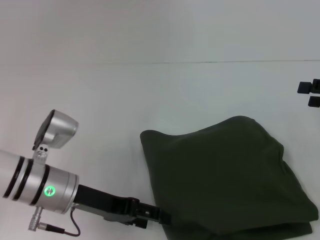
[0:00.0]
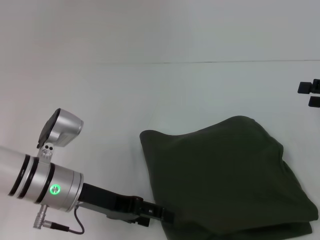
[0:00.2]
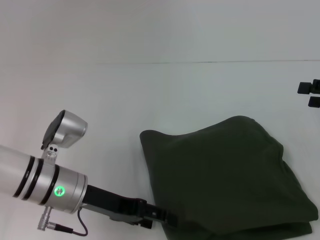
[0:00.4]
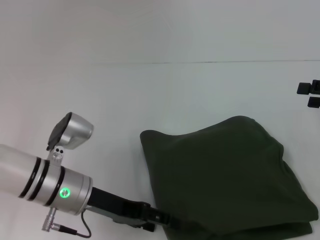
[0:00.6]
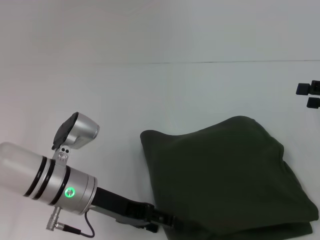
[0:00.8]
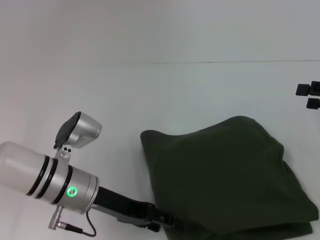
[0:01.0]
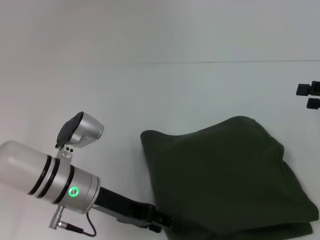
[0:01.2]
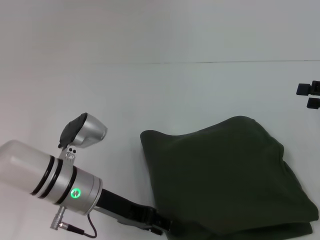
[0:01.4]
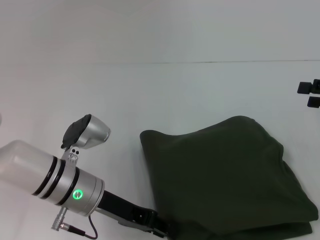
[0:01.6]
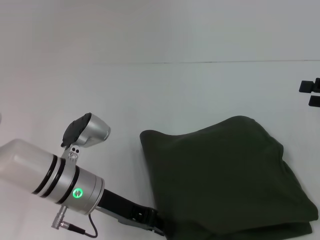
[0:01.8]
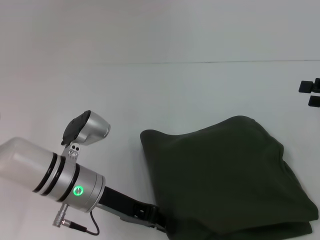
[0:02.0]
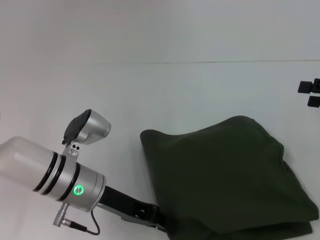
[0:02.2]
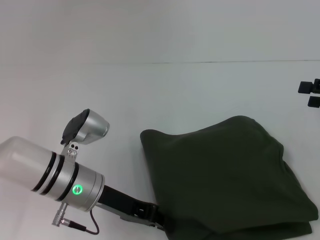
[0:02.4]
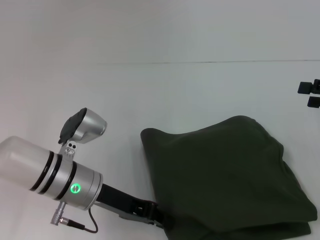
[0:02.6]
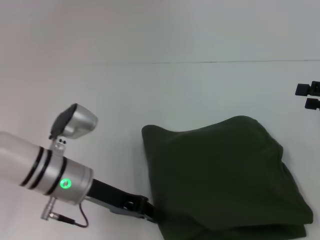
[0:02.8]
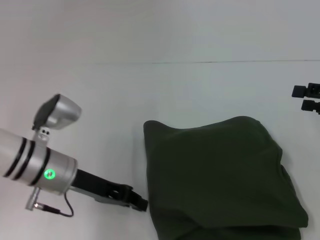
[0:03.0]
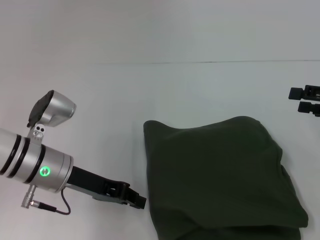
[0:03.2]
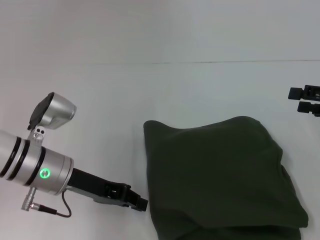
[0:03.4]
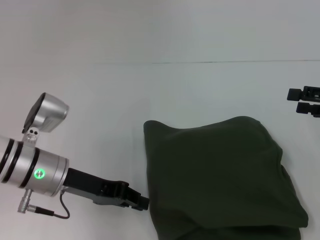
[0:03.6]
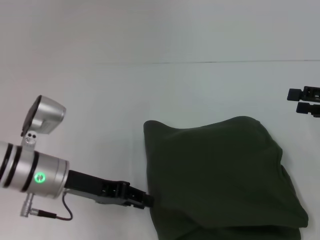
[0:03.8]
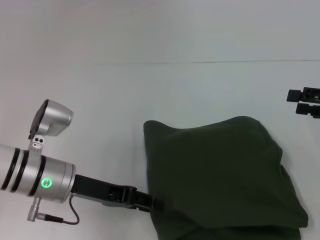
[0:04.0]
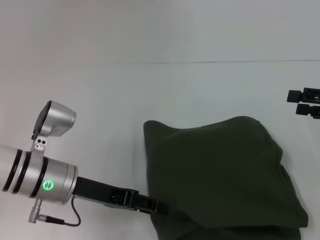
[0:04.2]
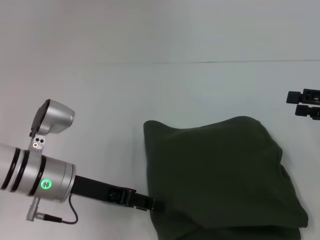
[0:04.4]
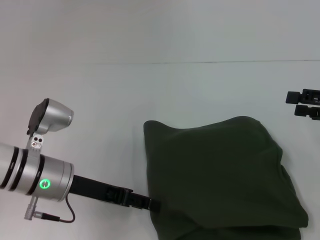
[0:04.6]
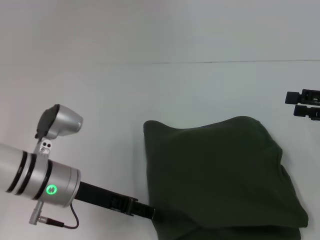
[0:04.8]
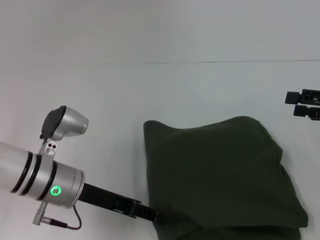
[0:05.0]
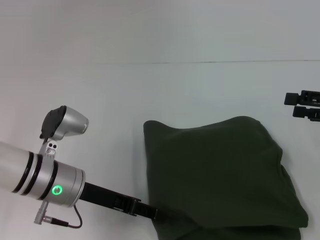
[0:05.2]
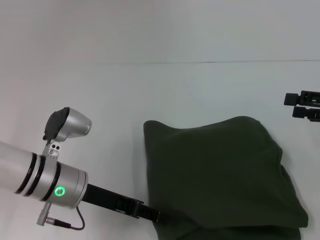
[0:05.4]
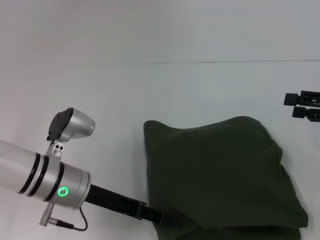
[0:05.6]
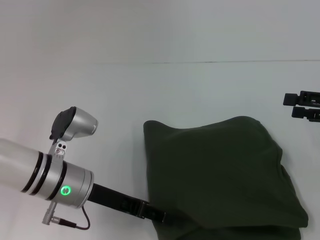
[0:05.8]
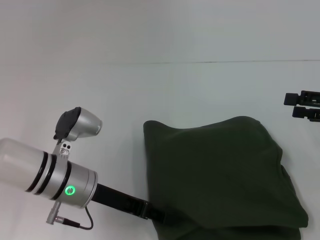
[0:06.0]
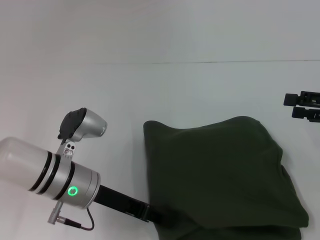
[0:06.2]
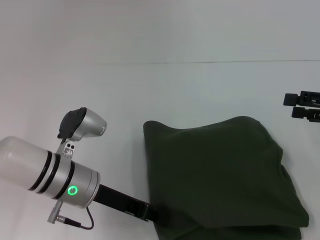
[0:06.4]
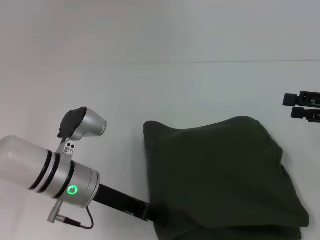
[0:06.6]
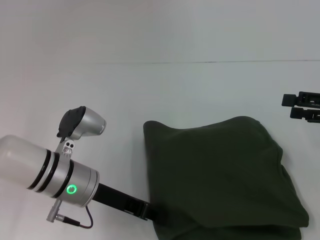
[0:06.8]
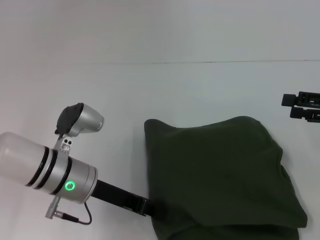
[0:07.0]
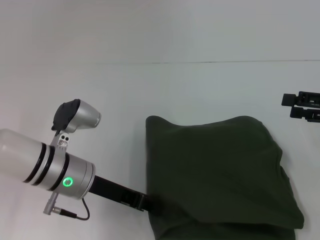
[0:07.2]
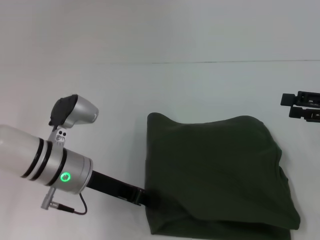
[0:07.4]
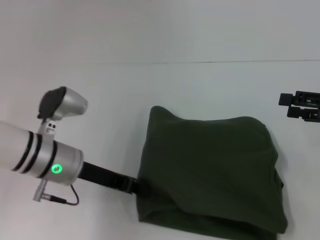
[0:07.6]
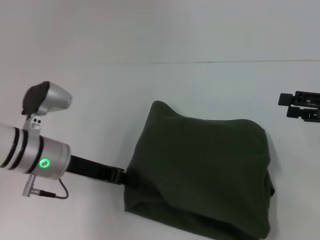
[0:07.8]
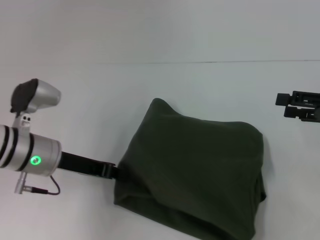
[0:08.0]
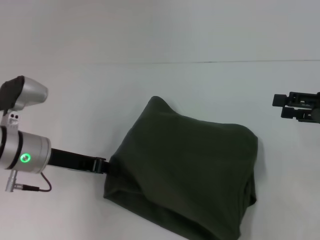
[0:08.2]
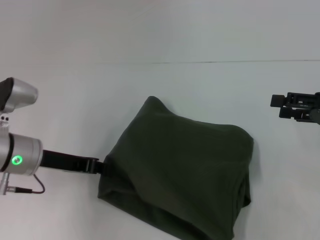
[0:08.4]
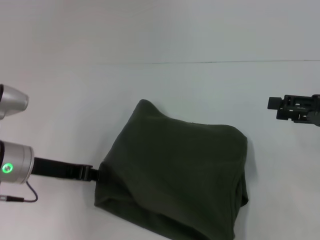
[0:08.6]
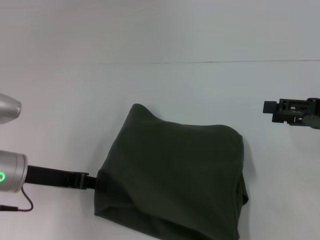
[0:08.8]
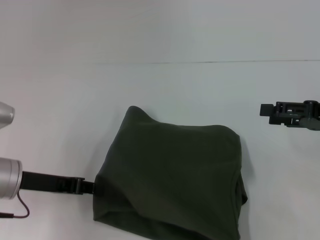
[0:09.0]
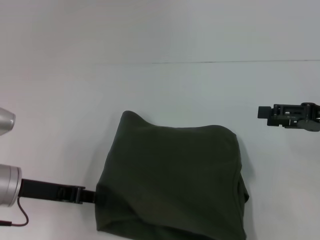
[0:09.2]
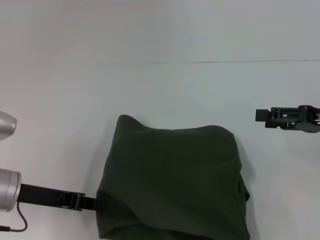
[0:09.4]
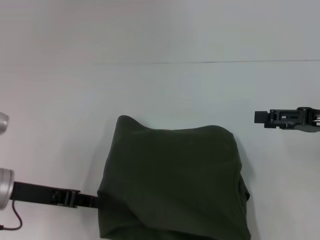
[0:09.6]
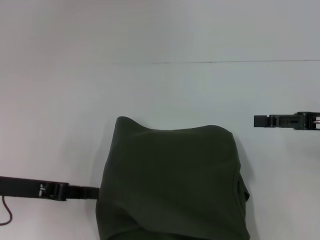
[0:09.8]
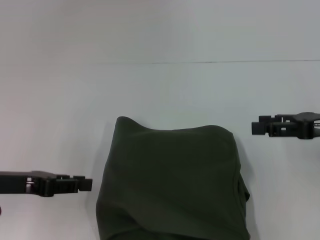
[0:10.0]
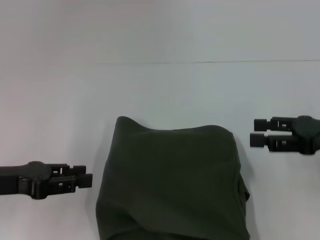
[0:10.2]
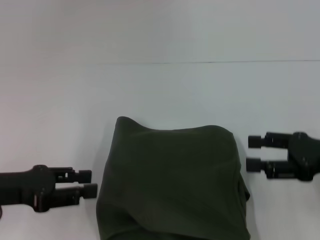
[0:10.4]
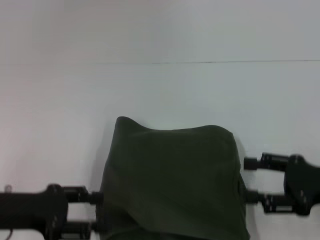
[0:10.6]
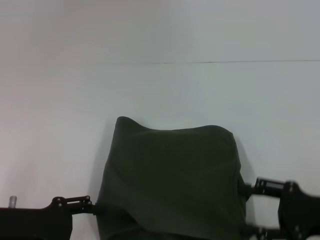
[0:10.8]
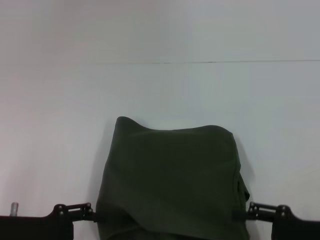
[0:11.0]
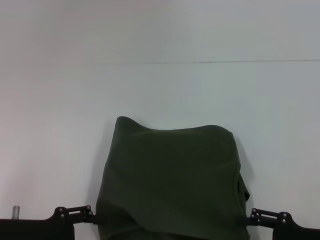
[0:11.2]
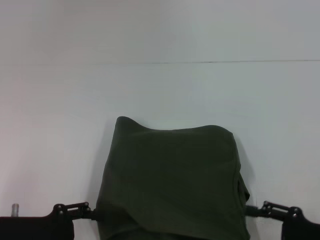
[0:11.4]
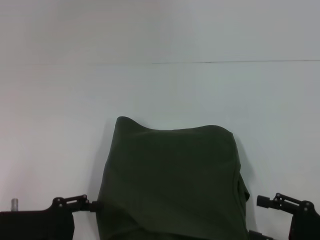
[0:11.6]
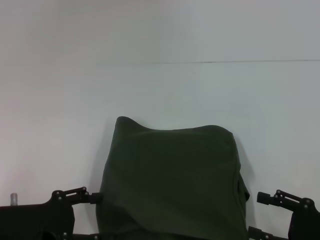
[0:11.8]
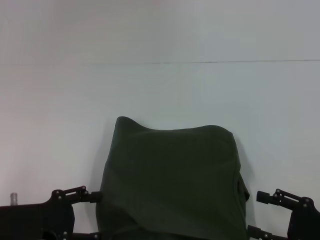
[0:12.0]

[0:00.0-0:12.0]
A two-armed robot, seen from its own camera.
0:00.0 to 0:01.6: The left gripper closes its fingers.
0:01.6 to 0:03.0: The left gripper closes its fingers.
0:03.0 to 0:04.4: The left gripper opens.
0:04.4 to 0:06.0: The grippers move only a little.
0:06.0 to 0:07.6: The left gripper closes up.
0:07.6 to 0:09.0: The left gripper shifts about 10 cm to the left.
0:09.0 to 0:10.4: The right gripper changes place by approximately 5 cm, while the left gripper ends up some 5 cm from where it was, and opens its fingers.
0:10.4 to 0:12.0: The left gripper shifts by approximately 5 cm, and opens up. Meanwhile the right gripper is displaced backward and downward by about 15 cm.

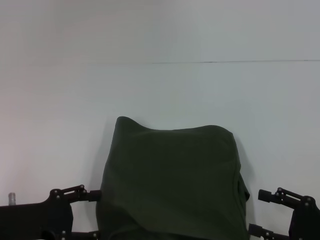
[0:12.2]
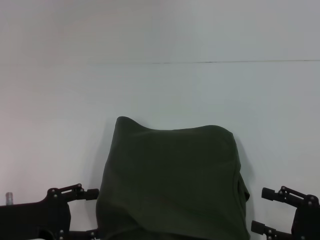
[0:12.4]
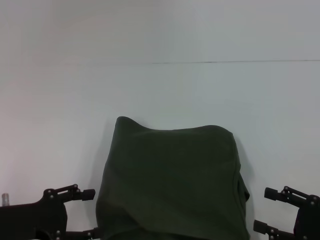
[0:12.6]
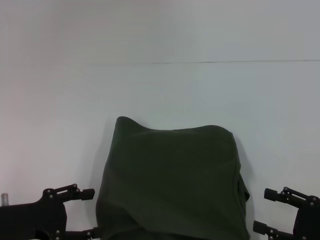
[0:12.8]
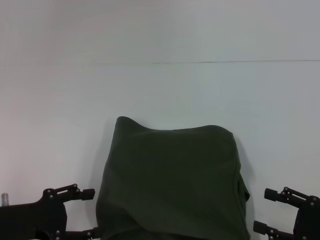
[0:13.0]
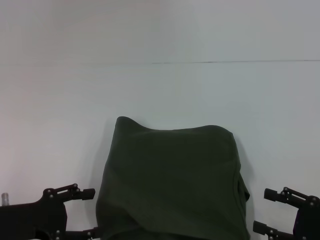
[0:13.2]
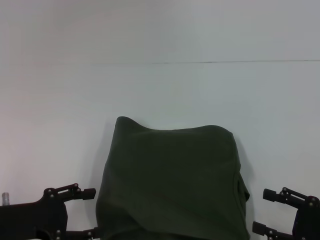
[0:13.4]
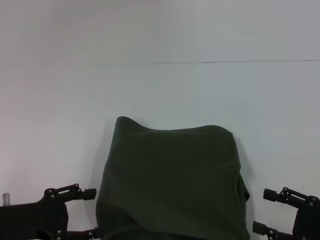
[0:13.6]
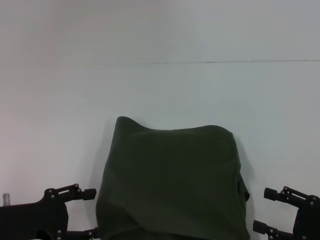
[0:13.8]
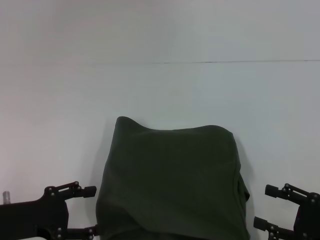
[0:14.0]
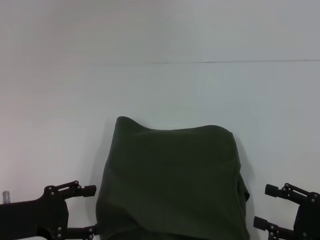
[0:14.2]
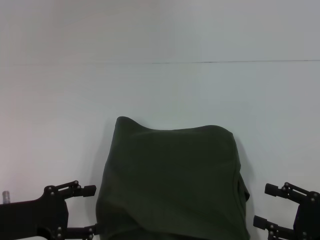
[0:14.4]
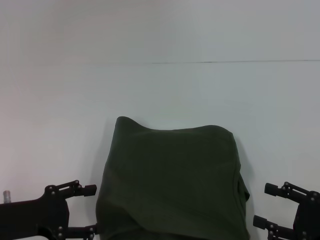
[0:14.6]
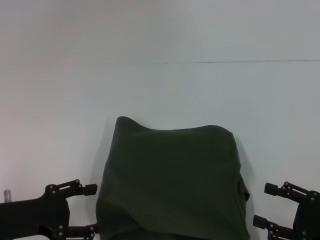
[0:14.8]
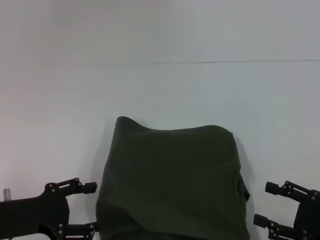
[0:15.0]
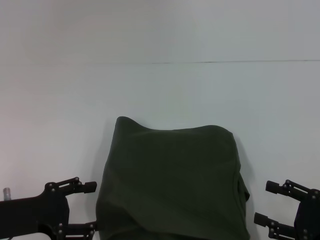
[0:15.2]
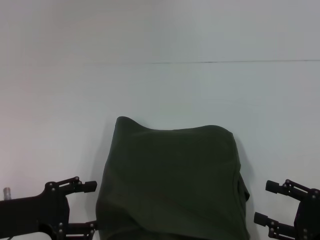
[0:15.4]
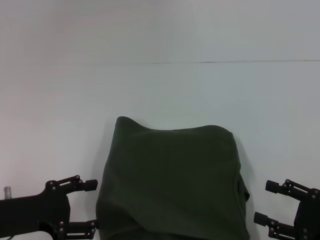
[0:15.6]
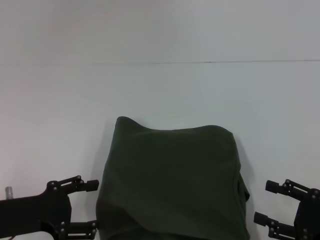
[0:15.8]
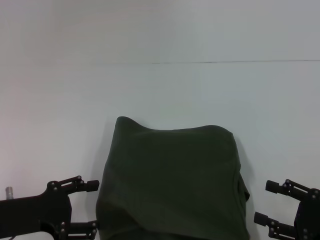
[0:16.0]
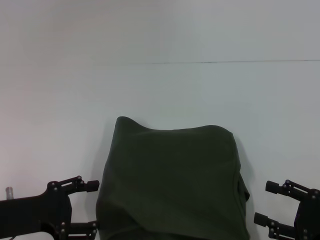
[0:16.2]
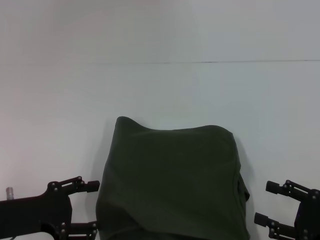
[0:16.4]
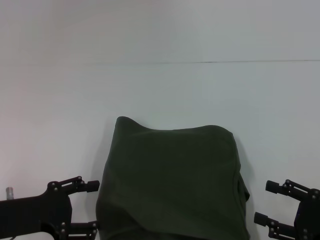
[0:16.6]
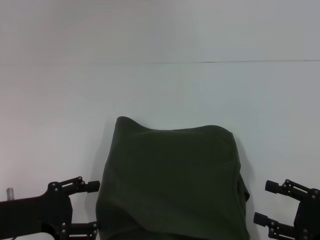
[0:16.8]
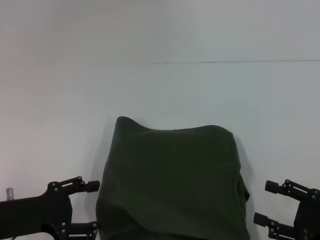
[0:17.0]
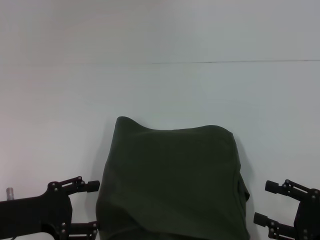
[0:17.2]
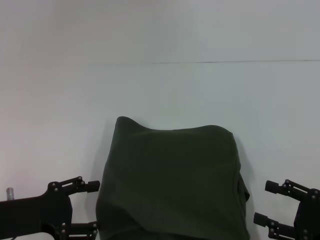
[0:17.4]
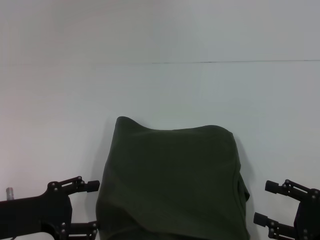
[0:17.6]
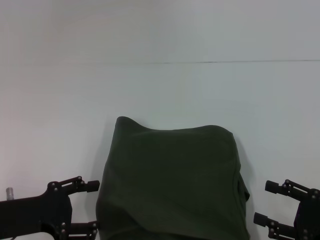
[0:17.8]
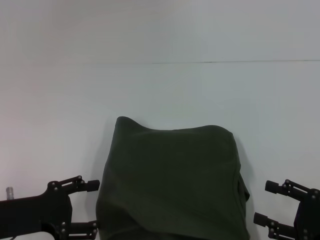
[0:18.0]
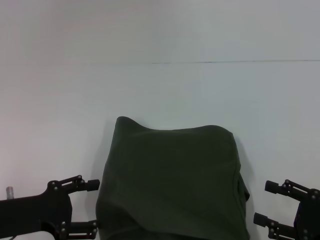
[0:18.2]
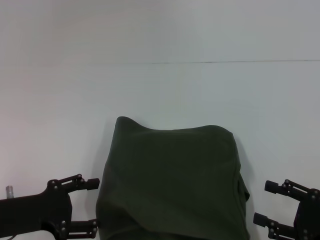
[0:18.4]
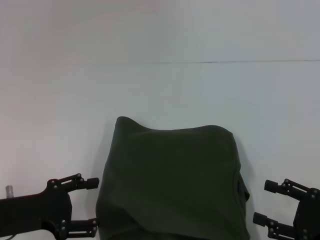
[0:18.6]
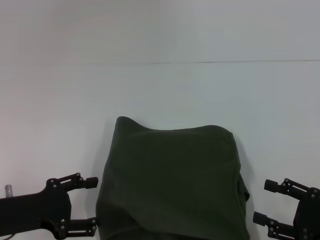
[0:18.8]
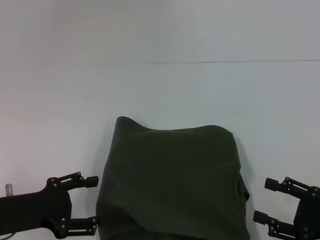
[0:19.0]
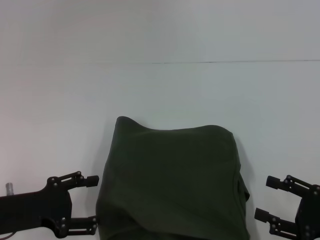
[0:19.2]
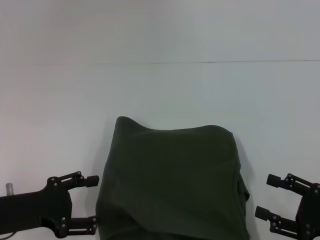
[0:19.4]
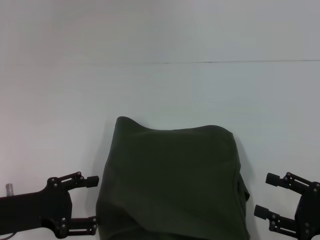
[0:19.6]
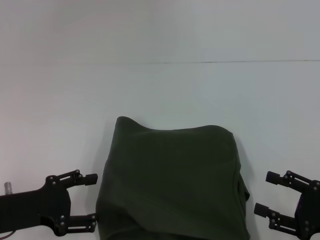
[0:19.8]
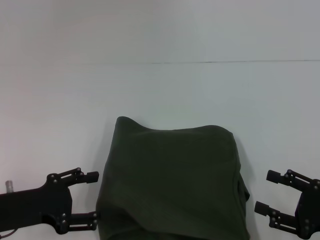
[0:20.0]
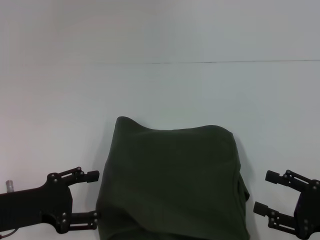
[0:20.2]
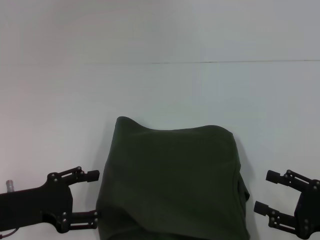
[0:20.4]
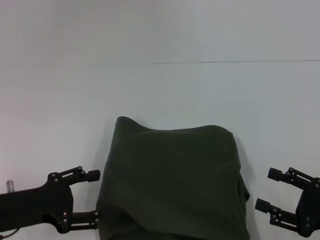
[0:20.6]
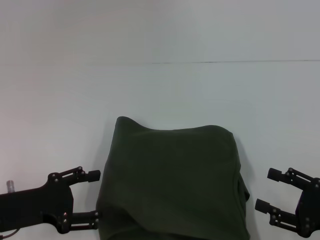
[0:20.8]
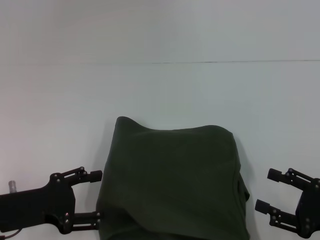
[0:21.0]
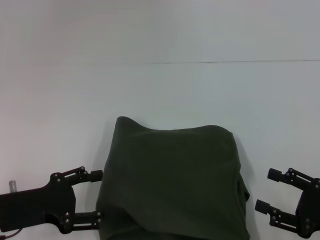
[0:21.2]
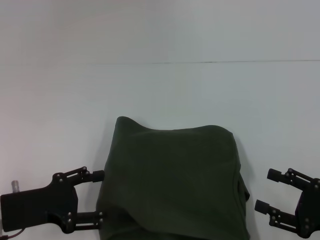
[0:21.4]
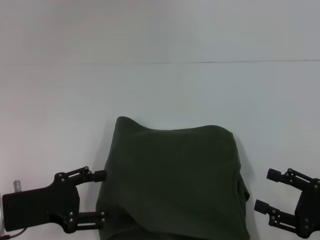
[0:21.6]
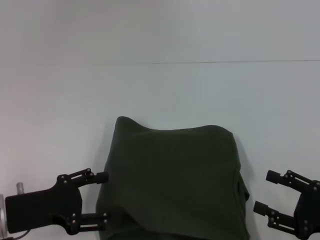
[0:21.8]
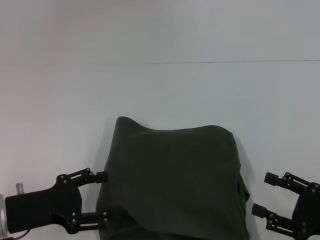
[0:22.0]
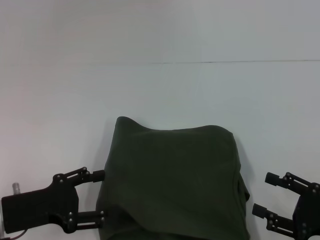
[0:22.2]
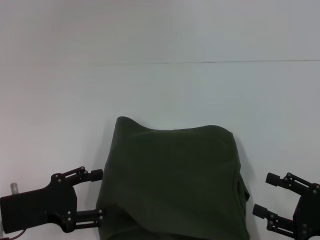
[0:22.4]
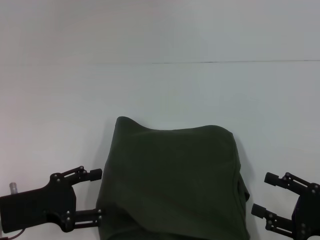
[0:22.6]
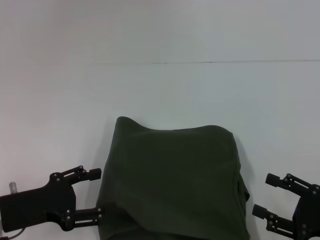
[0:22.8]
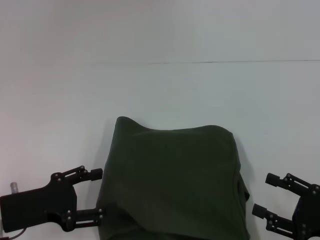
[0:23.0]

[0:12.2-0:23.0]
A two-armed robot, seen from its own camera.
0:12.2 to 0:18.4: Both grippers stay about where they are.
0:18.4 to 0:21.4: Both grippers stay about where they are.
0:21.4 to 0:23.0: Both grippers stay about where they are.
